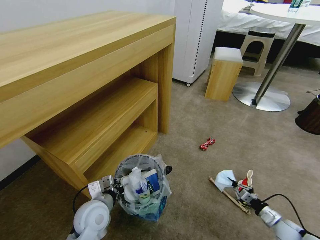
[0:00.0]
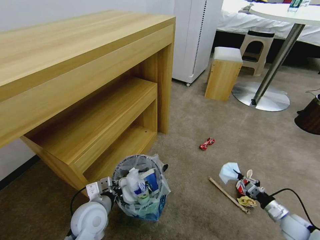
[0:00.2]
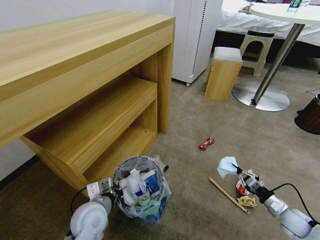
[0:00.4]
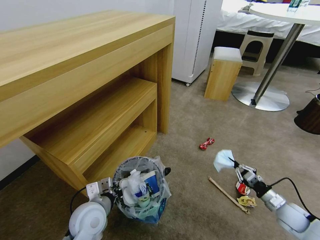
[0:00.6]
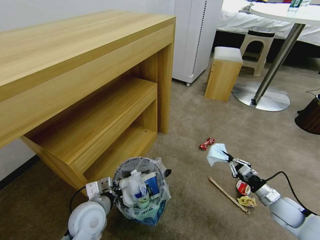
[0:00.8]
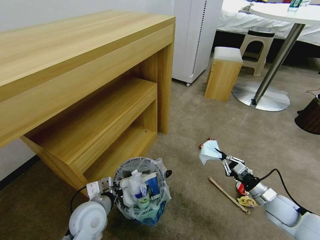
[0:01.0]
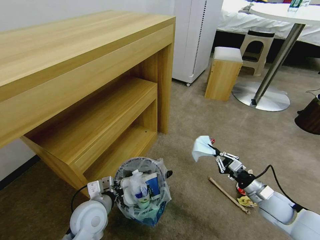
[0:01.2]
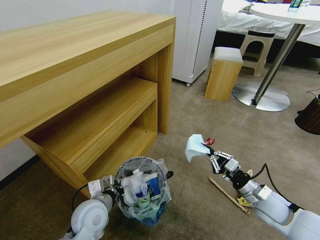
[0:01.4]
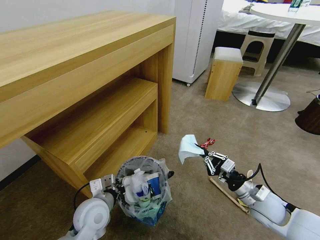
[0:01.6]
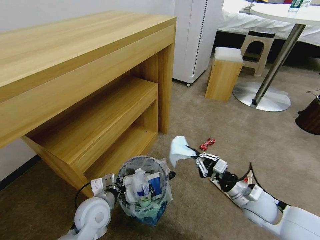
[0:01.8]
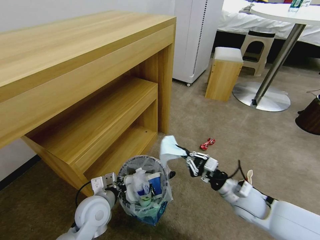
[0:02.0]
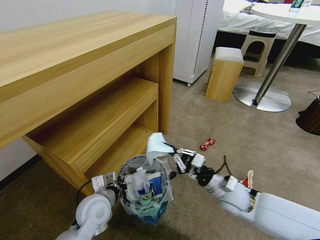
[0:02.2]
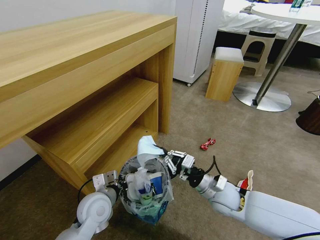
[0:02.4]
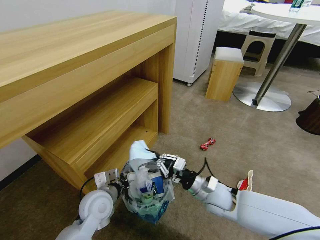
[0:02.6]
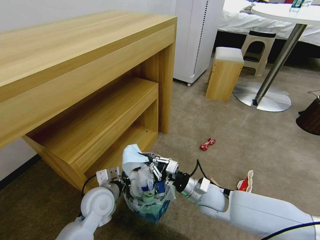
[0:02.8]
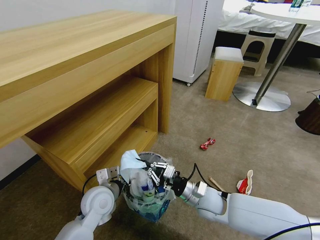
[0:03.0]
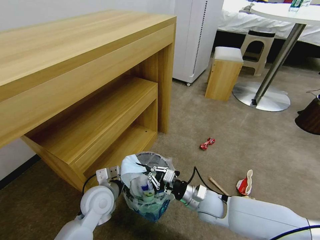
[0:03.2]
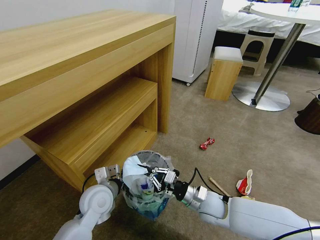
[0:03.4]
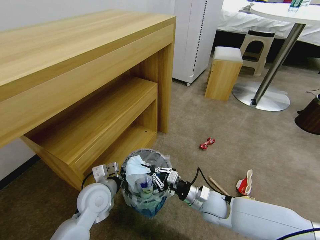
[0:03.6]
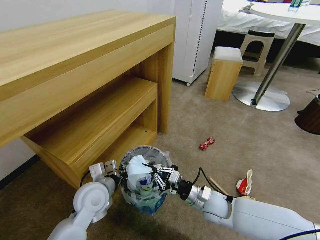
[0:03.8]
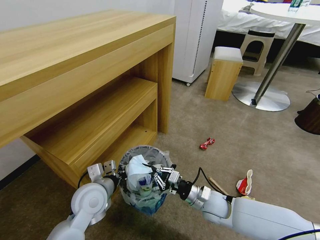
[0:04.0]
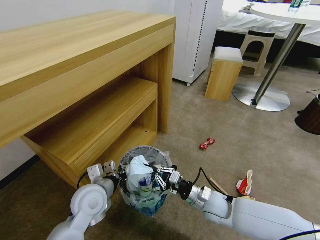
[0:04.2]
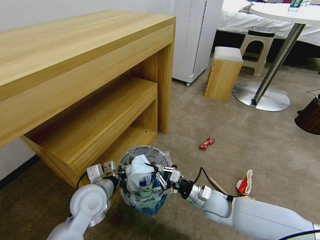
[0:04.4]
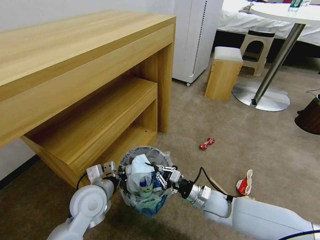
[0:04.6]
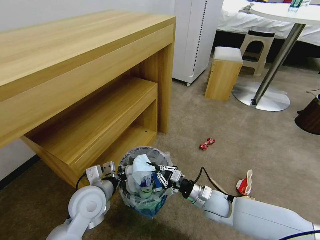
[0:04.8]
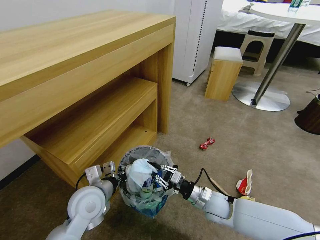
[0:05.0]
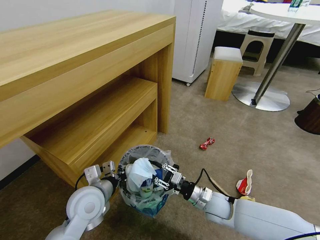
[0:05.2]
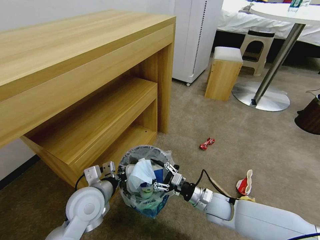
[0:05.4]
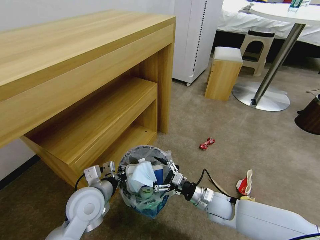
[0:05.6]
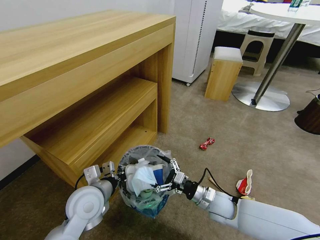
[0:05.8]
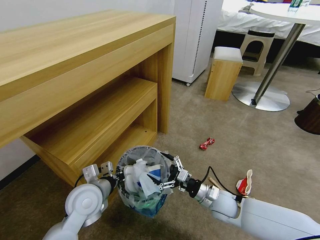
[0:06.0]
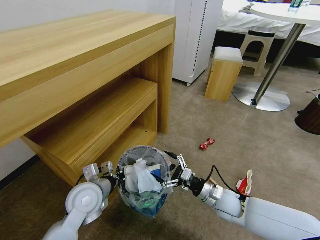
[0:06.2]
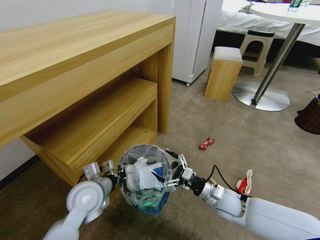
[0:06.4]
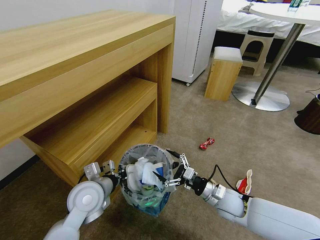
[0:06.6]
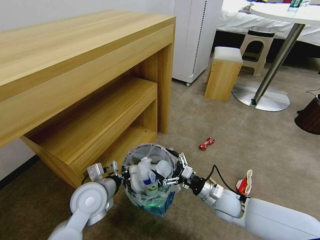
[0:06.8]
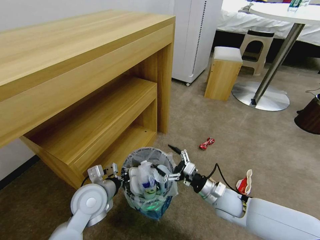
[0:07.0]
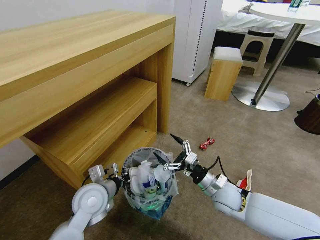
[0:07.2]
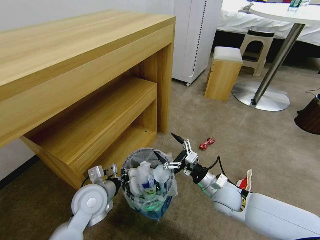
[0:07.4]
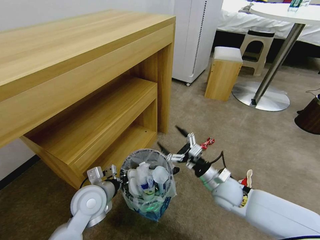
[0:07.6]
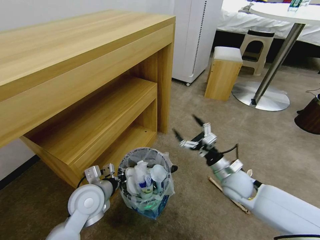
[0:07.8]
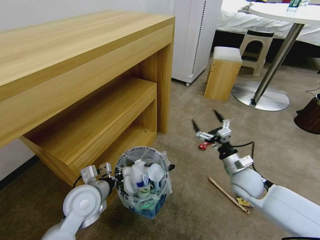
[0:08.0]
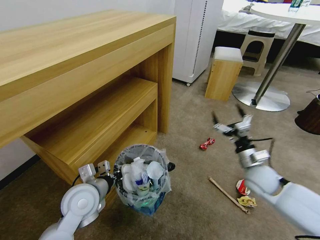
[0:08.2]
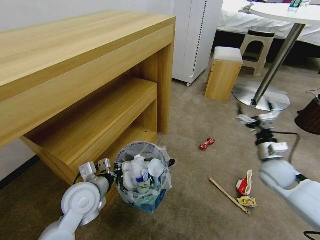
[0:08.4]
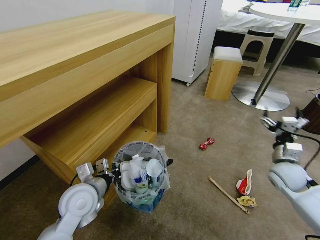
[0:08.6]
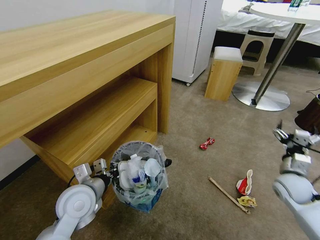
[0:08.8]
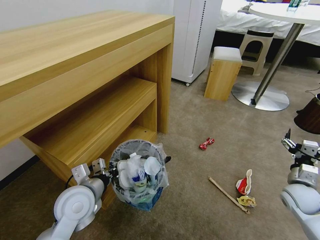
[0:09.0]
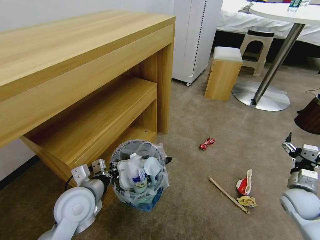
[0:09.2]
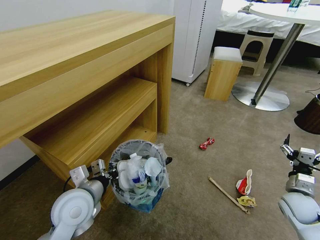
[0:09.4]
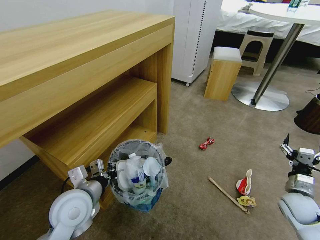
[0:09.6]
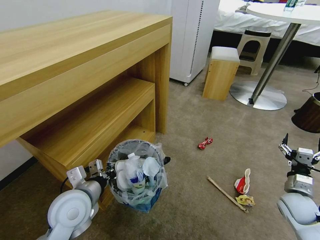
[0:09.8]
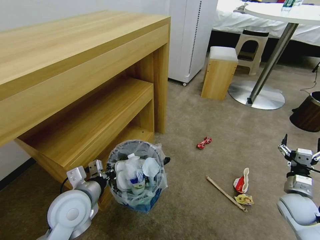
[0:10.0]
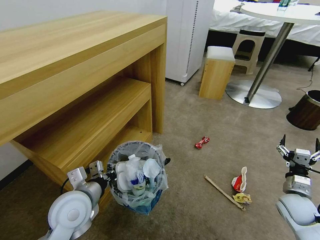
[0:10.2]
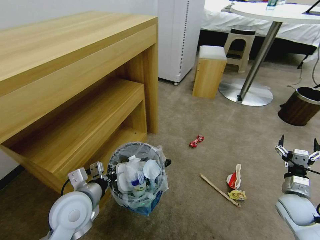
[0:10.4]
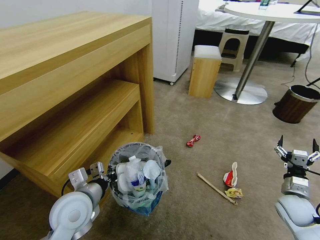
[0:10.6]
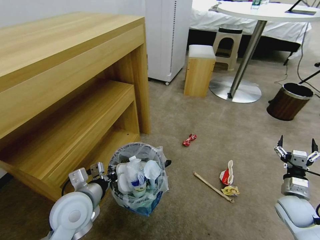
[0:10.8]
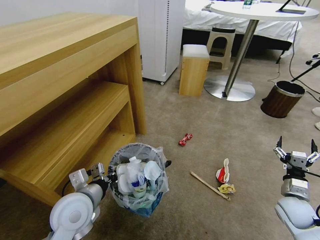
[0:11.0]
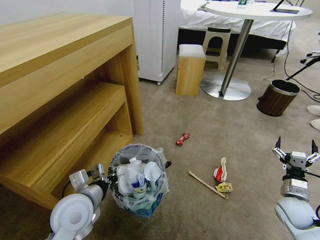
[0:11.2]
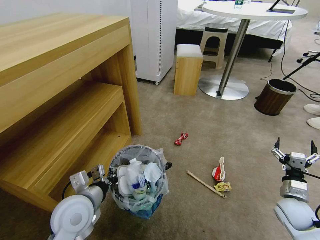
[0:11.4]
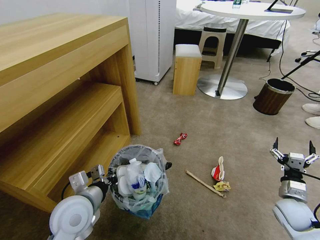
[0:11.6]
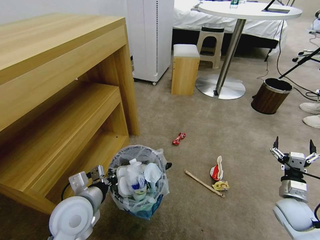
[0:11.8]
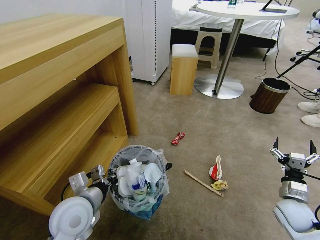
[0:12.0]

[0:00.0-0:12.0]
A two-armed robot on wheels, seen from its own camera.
Task of the whole recording: Pick up the trash bin and place the garbage on the floor into it.
0:00.0 to 0:01.6: The right gripper is displaced upward and to the left by roughly 25 cm.
0:01.6 to 0:03.0: The right gripper heads to the left, covering about 15 cm.
0:03.0 to 0:04.4: The grippers make only small movements.
0:04.4 to 0:06.0: The right gripper opens up.
0:06.0 to 0:07.6: The right gripper goes approximately 5 cm upward.
0:07.6 to 0:09.0: The right gripper moves to the right, roughly 25 cm.

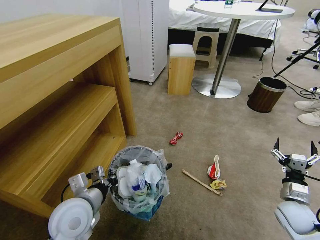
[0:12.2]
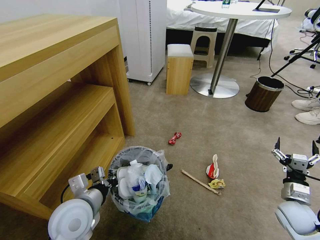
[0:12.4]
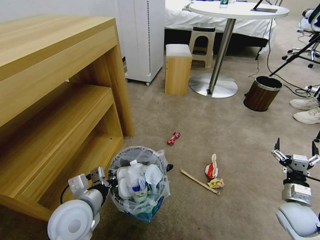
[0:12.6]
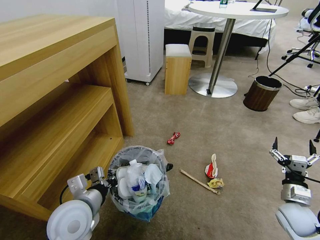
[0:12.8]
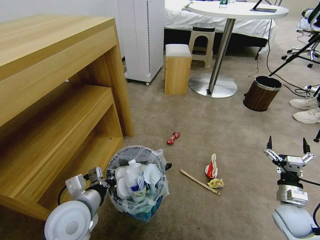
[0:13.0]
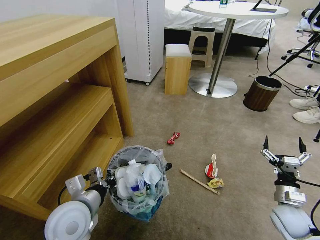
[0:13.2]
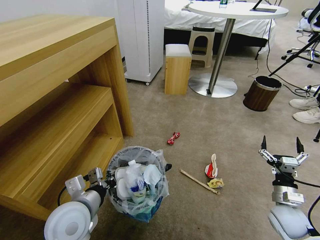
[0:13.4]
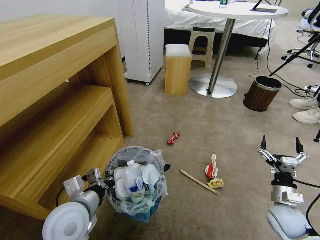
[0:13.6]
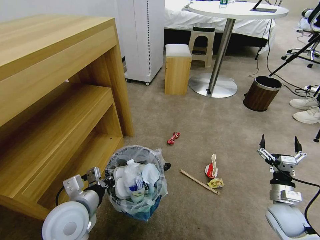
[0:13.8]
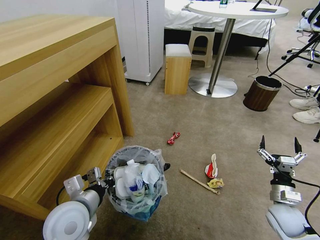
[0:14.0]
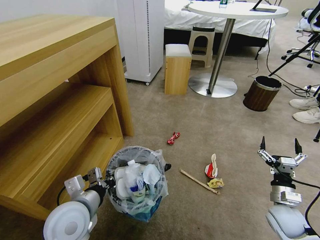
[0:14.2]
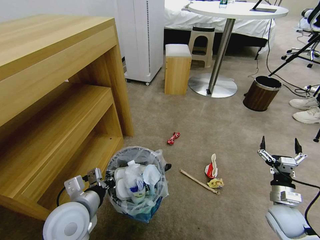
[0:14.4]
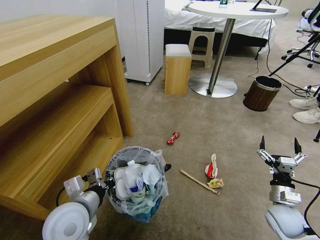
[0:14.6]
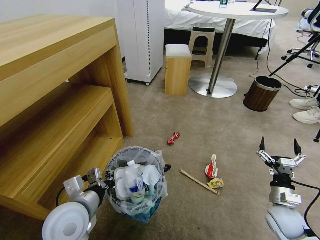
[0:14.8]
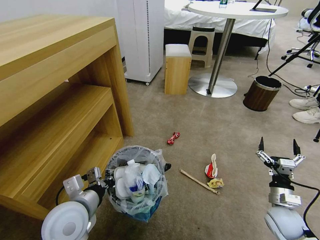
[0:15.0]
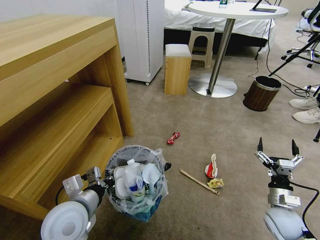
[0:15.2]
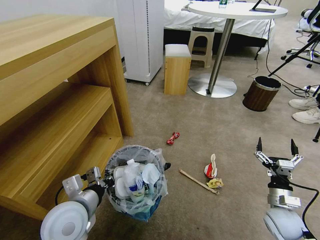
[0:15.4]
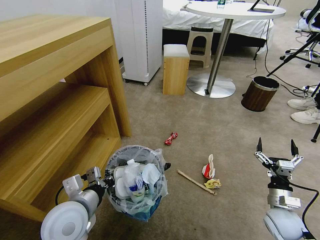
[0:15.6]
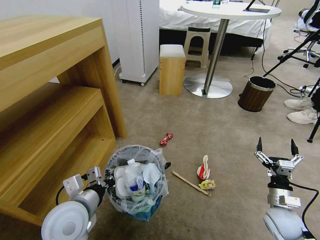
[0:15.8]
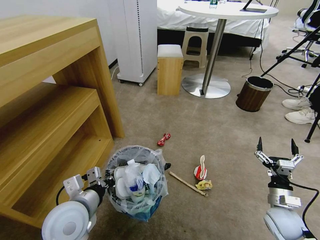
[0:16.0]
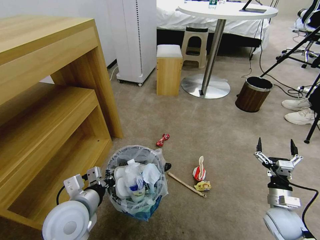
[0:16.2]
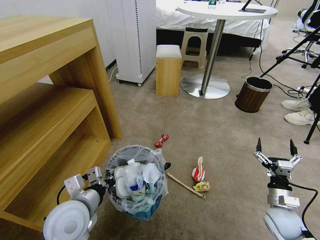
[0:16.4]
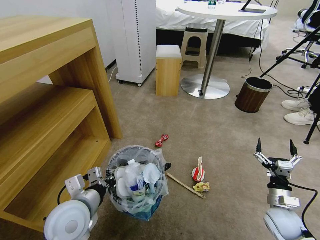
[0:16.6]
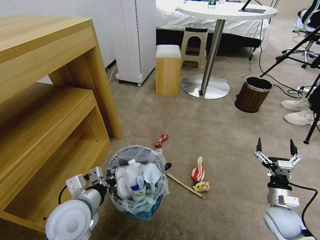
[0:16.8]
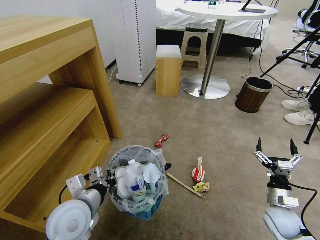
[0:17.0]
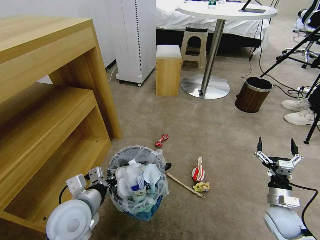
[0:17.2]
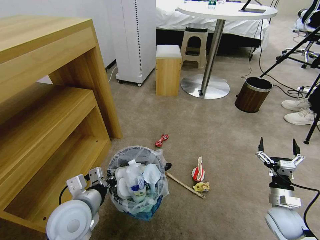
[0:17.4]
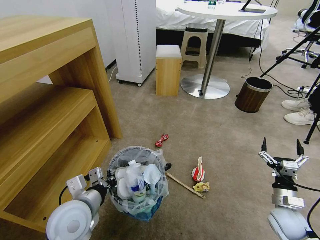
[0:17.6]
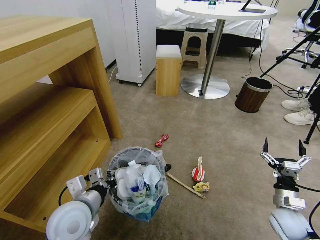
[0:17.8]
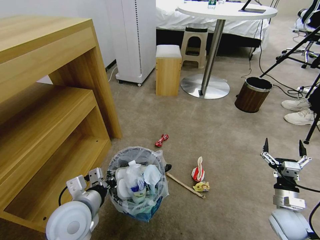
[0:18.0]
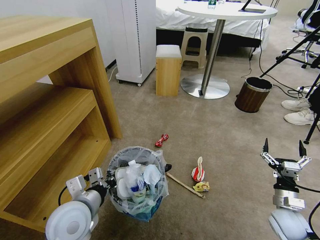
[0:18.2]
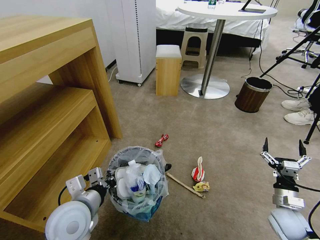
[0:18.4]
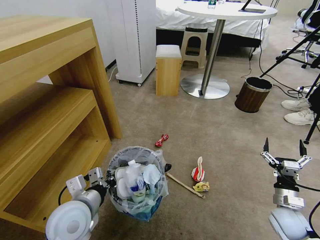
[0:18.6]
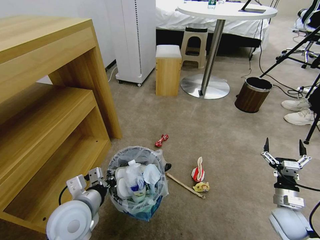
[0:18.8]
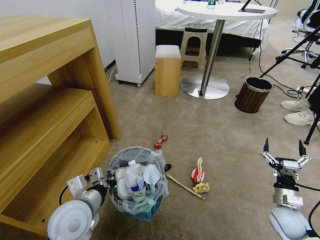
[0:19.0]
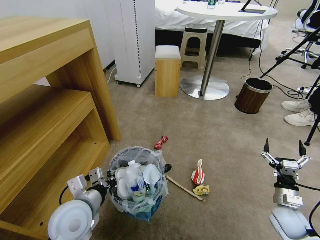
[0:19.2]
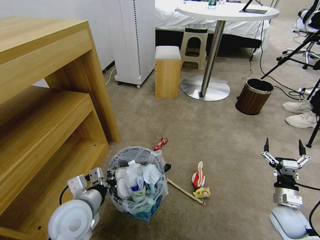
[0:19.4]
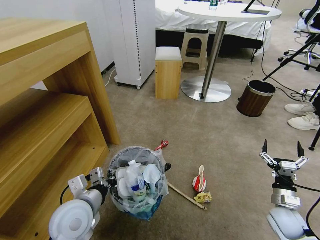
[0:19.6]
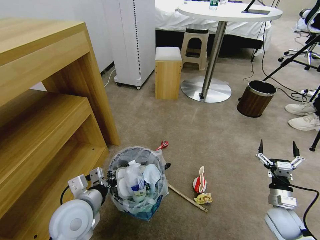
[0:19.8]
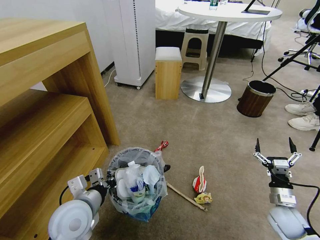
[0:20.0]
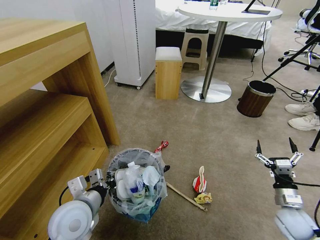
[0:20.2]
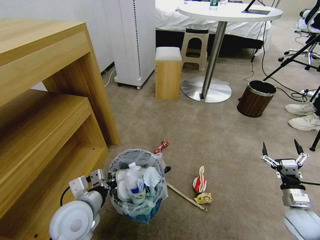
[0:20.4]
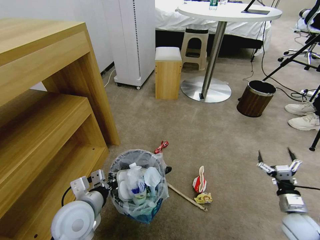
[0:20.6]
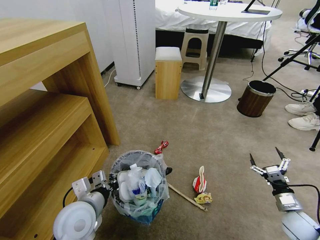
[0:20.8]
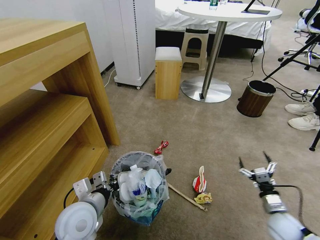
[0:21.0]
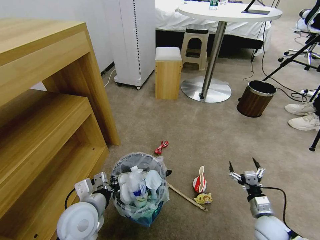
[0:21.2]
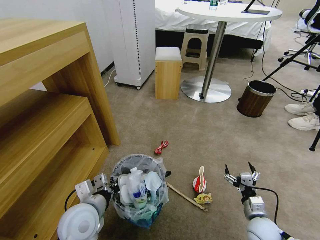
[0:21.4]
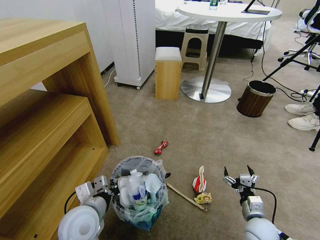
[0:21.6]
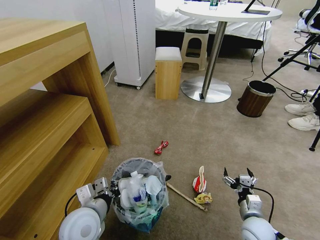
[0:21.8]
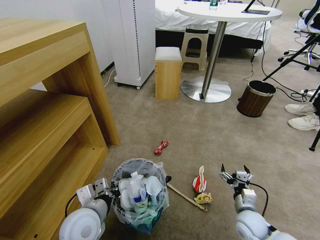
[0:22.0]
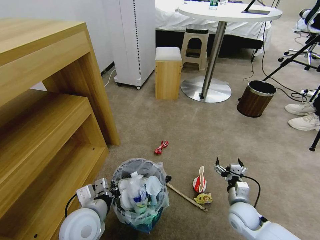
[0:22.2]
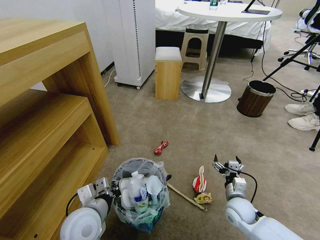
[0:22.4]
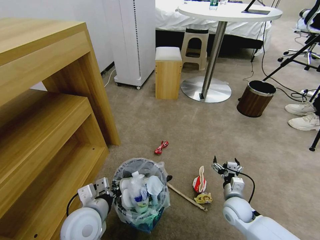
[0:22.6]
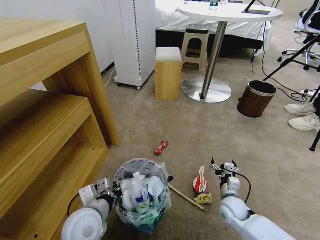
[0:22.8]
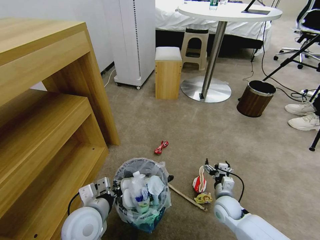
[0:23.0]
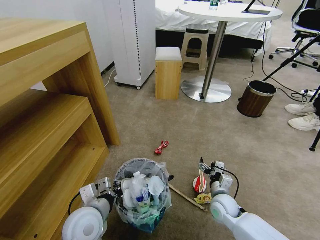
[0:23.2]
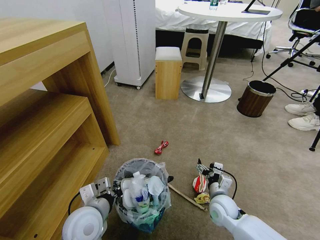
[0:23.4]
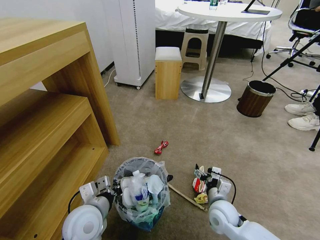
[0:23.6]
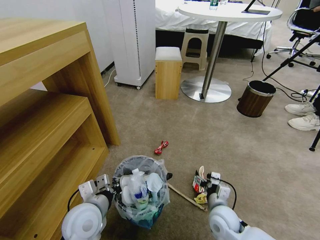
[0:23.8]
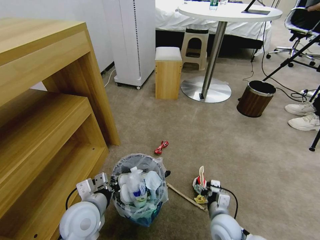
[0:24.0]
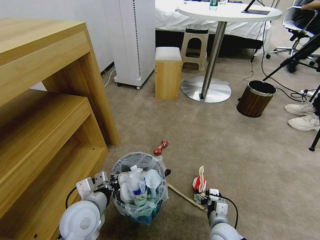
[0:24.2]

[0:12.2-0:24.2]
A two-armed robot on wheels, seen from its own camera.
Task of the whole recording: Pick up the trash bin and place the garbage on the floor into it.
0:13.8 to 0:15.2: Both grippers stay put.
0:16.6 to 0:19.8: There are only small adjustments of the grippers.
0:19.8 to 0:21.2: The right gripper ends up approximately 5 cm from where it was.
0:21.2 to 0:22.6: The right gripper goes about 10 cm to the left and forward.
0:22.6 to 0:24.2: The right gripper is displaced backward and to the left by some 10 cm.
